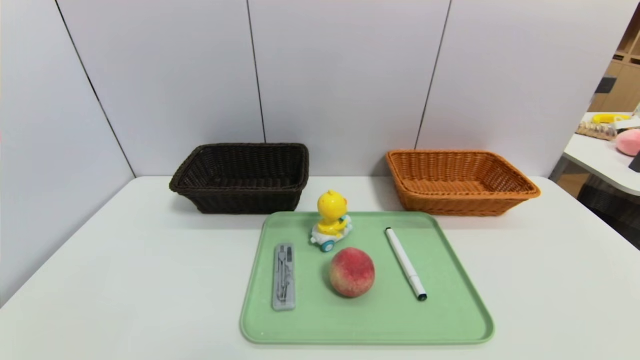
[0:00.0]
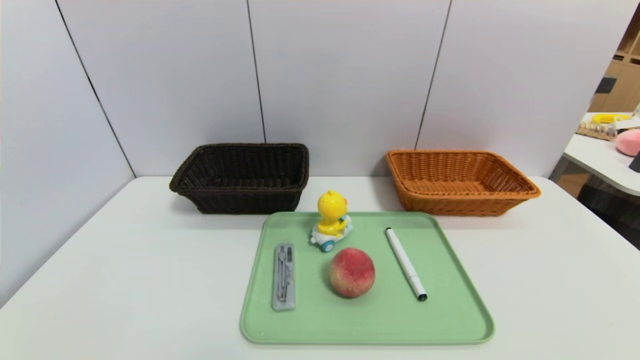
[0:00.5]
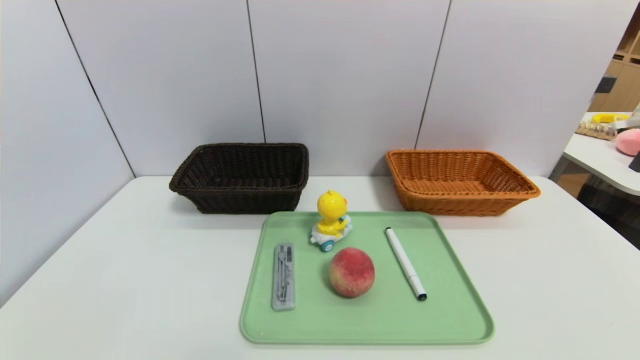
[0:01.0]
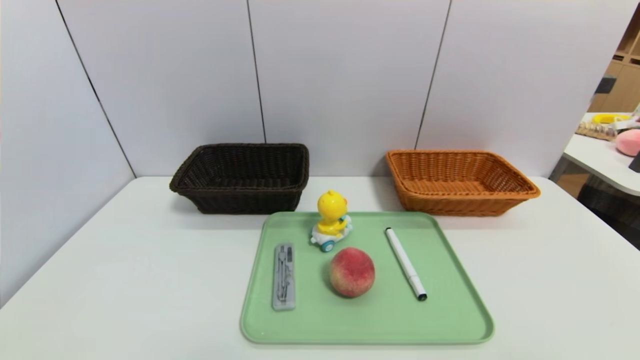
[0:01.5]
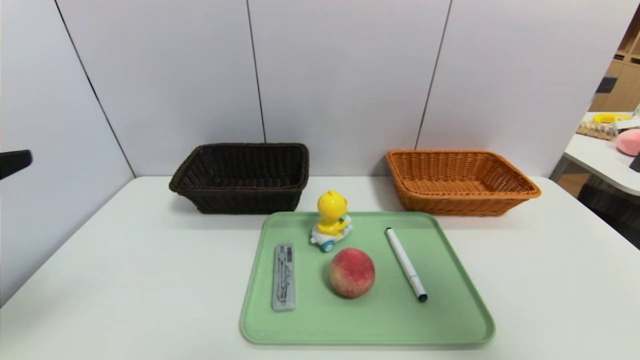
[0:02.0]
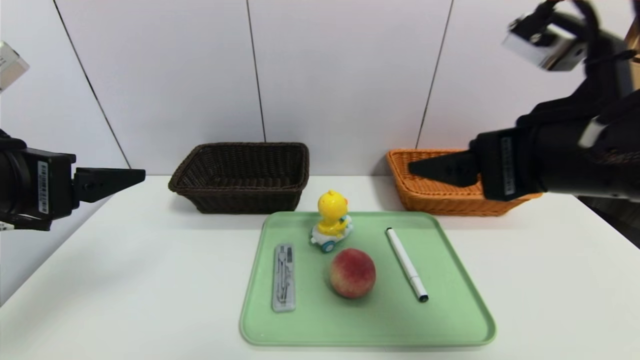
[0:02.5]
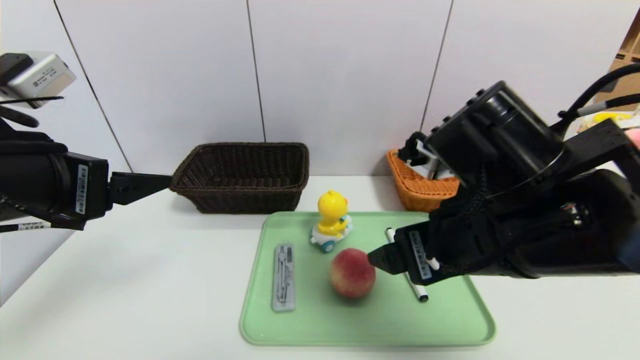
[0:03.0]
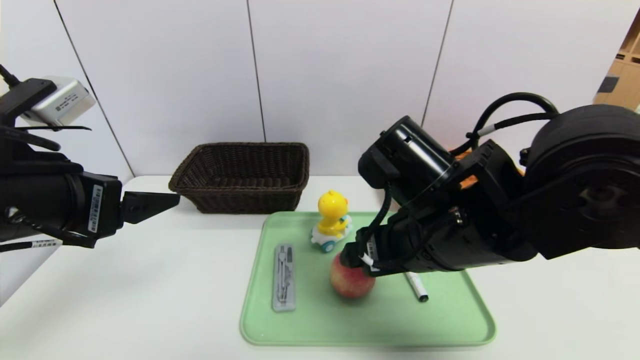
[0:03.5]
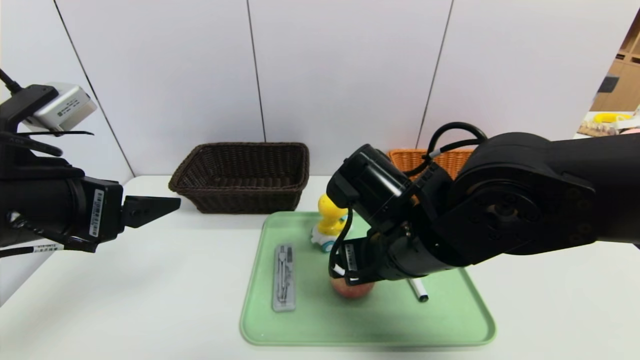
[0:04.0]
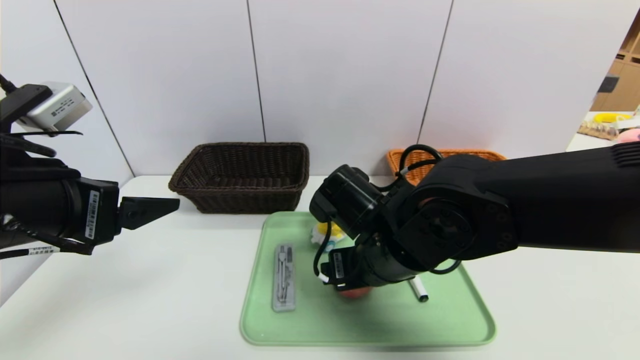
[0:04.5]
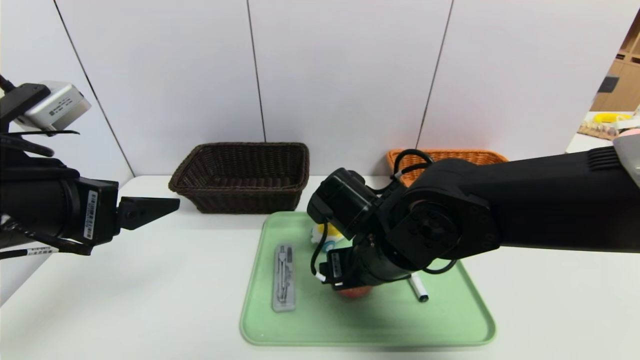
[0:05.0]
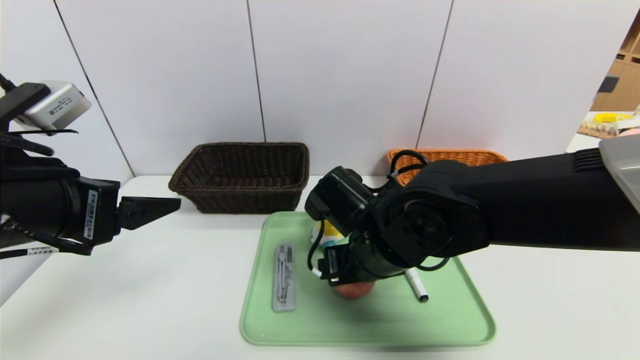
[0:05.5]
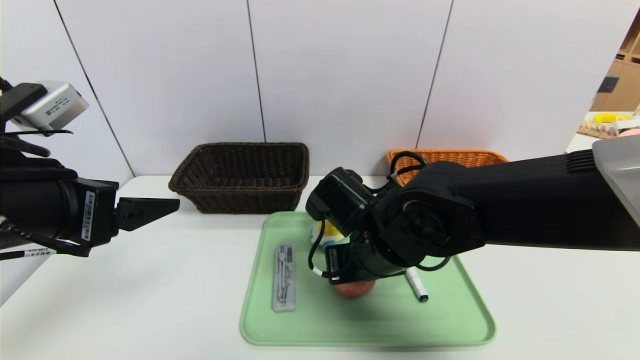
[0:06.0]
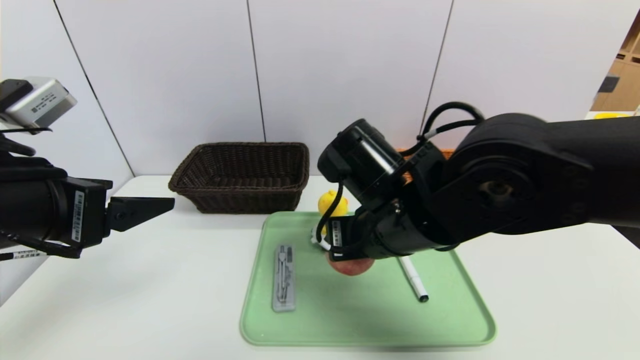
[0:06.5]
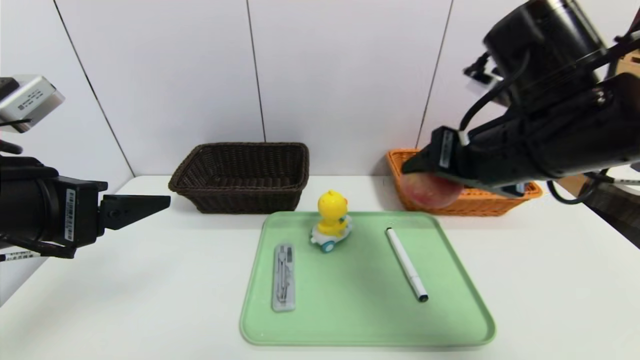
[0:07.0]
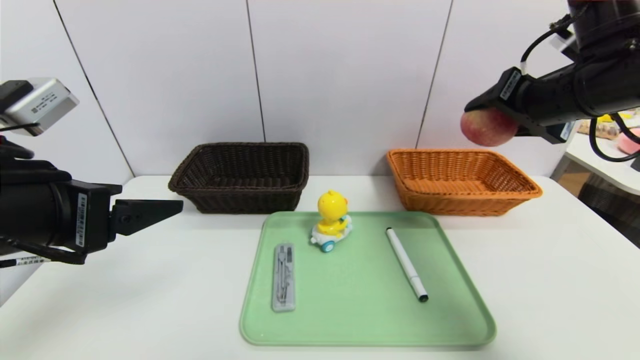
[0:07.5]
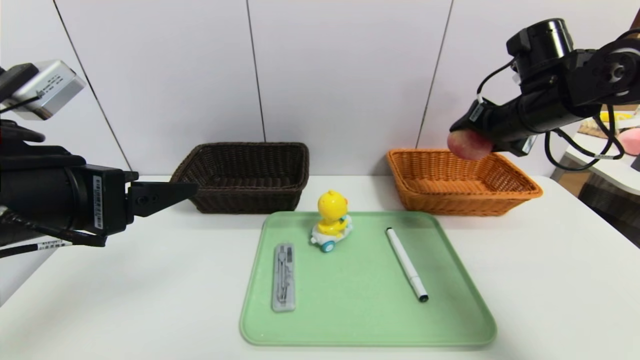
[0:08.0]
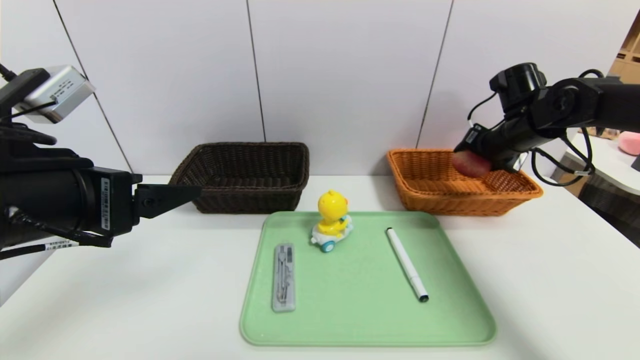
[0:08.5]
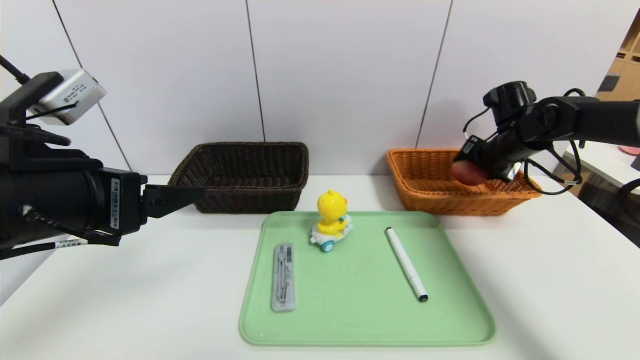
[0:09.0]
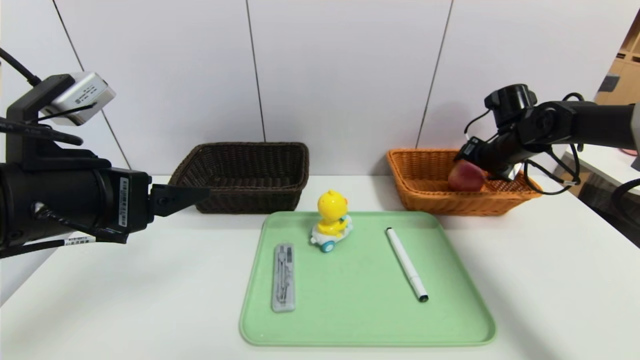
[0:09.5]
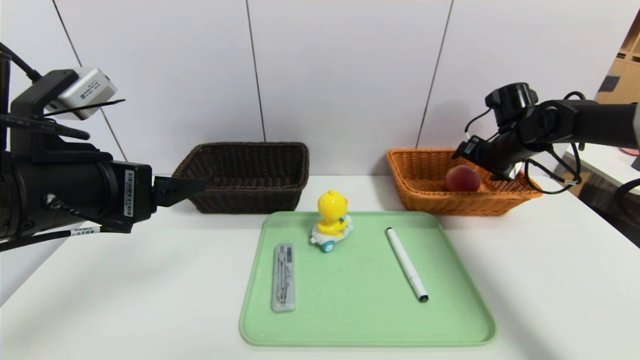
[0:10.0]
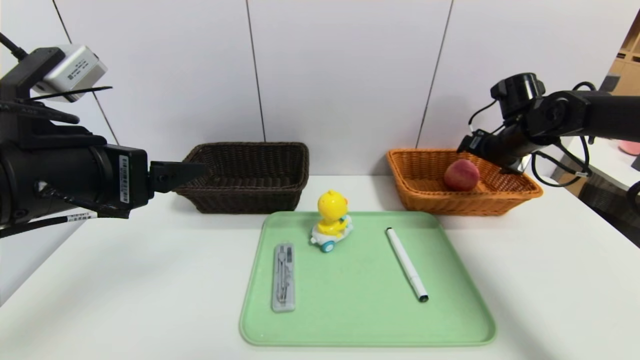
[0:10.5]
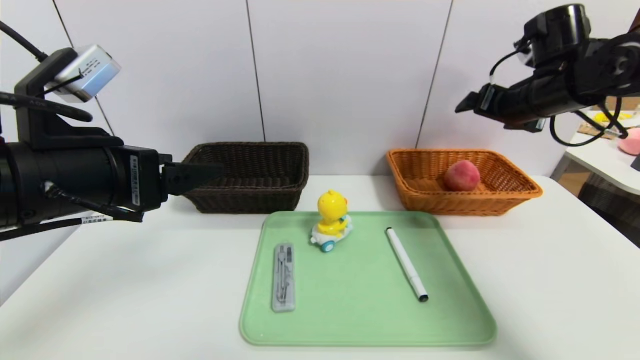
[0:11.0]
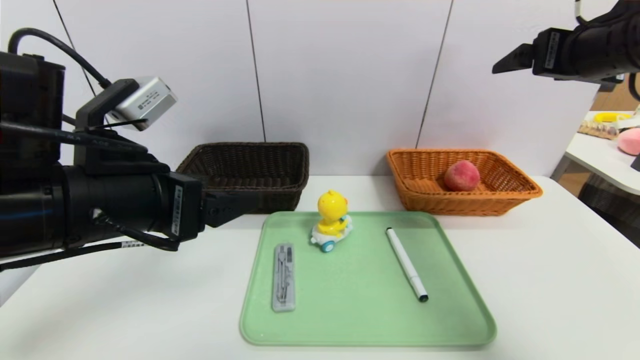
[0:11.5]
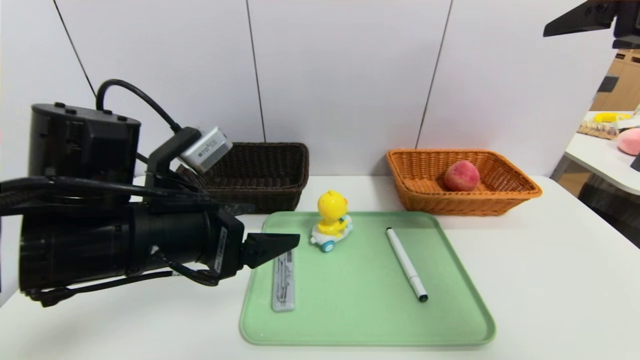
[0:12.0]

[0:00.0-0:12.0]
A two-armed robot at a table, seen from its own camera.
Task of the whole recording: place the food in the right basket with the right gripper, and place the non food items in the left basket with the left gripper.
Step, 0:00.0 to 0:09.5: Grasp the peach and put it in the right basket.
0:00.0 to 0:02.0: Both grippers travel together upward and forward, some 30 cm.
0:02.0 to 0:04.0: The right gripper moves to the left, downward and forward, approximately 30 cm, while the left gripper heads forward and to the right, covering roughly 10 cm.
0:04.0 to 0:06.0: The right gripper changes place by roughly 5 cm, and closes up.
0:06.0 to 0:08.0: The right gripper goes some 30 cm to the right, upward and forward.
0:08.0 to 0:10.0: The right gripper moves downward, forward and to the right, some 15 cm.
0:10.0 to 0:12.0: The right gripper is displaced backward and upward by some 35 cm. Meanwhile the left gripper shifts approximately 10 cm to the right and downward.

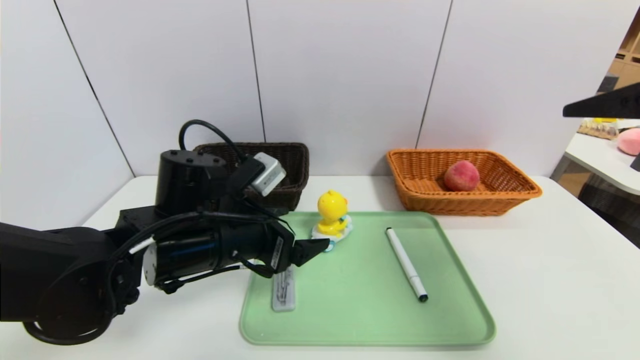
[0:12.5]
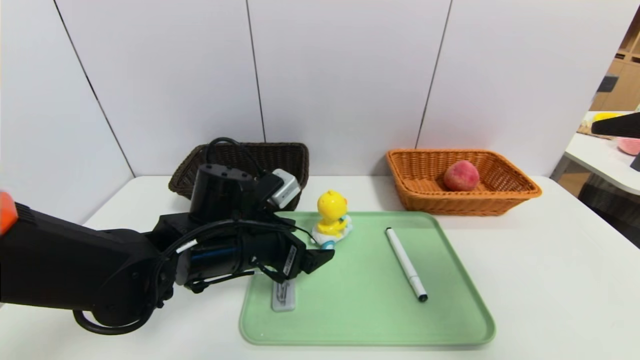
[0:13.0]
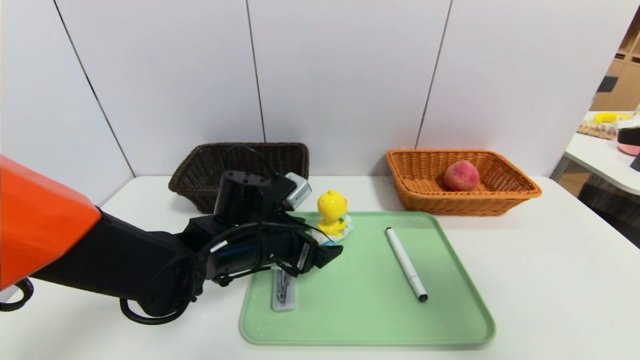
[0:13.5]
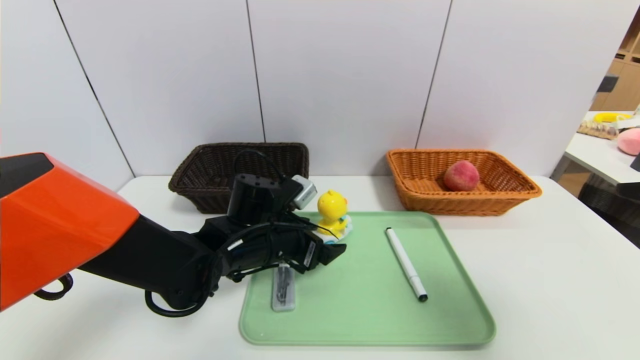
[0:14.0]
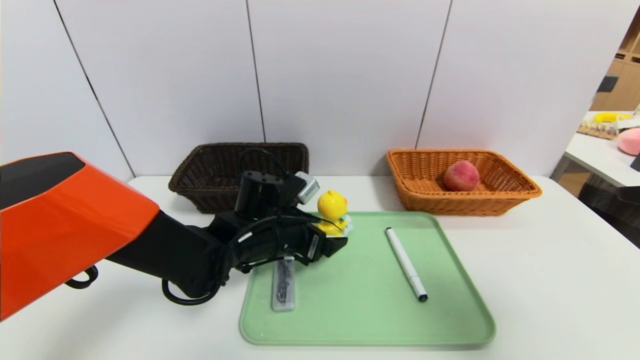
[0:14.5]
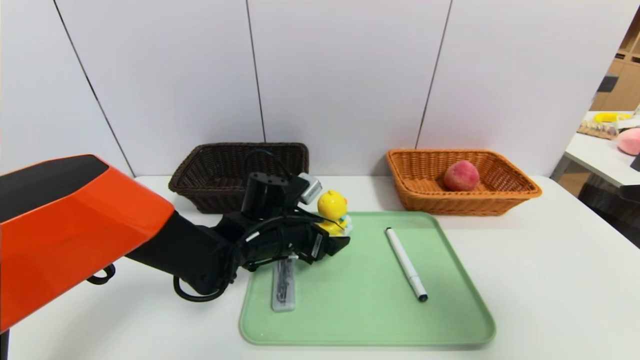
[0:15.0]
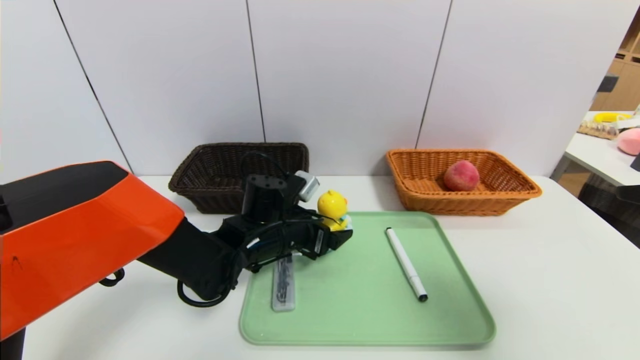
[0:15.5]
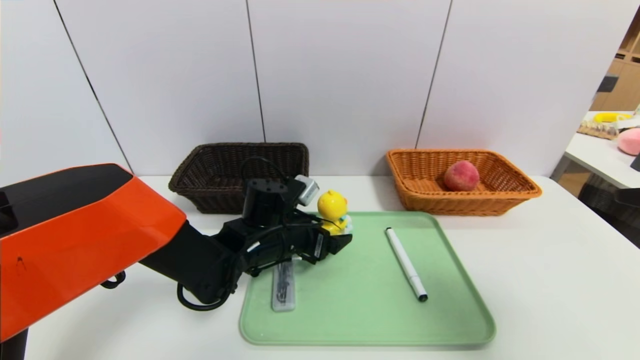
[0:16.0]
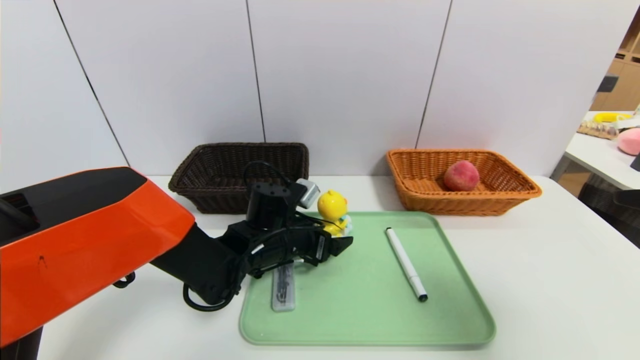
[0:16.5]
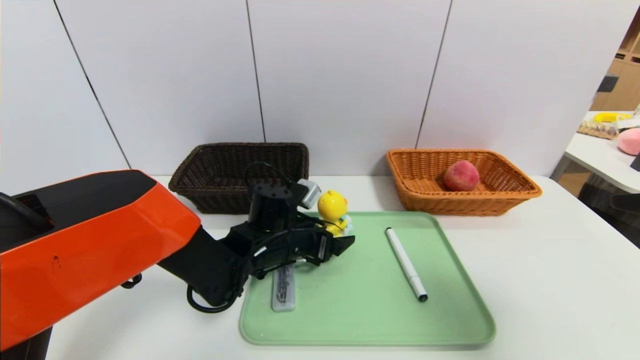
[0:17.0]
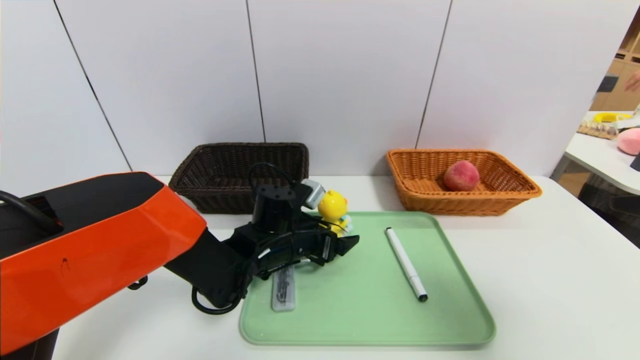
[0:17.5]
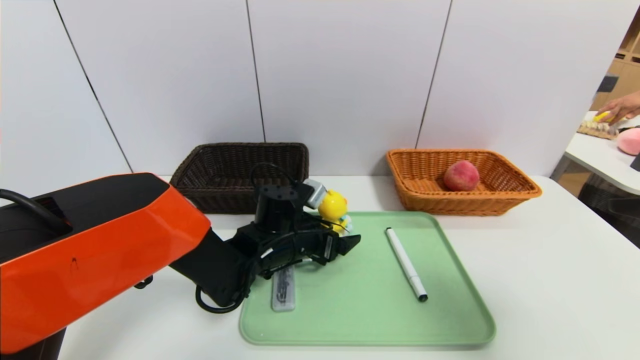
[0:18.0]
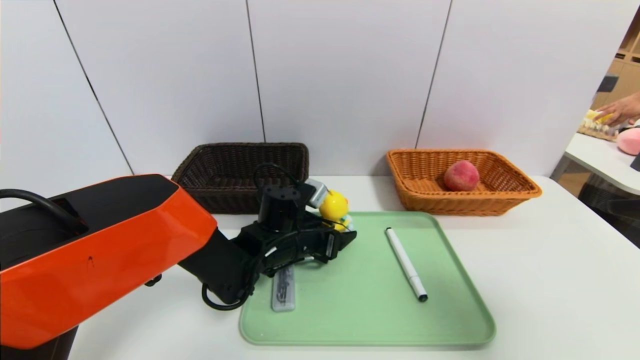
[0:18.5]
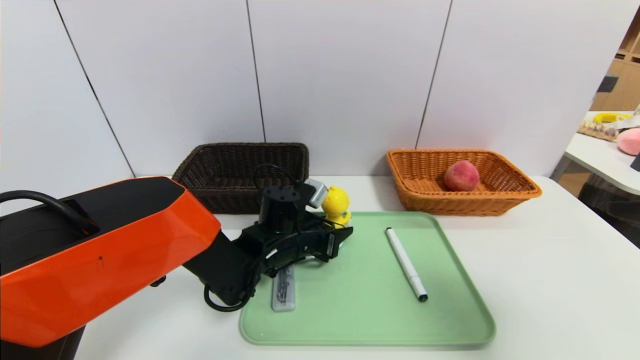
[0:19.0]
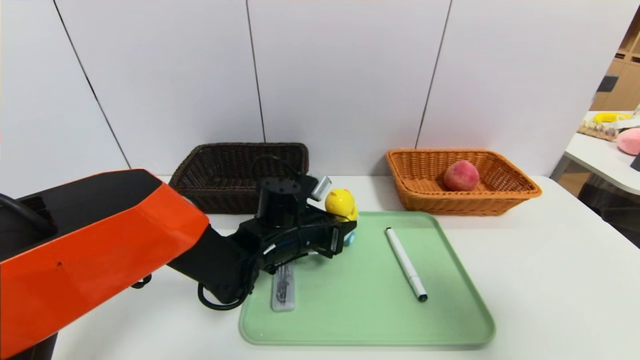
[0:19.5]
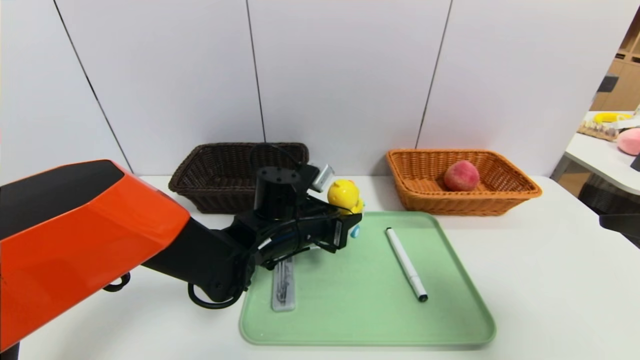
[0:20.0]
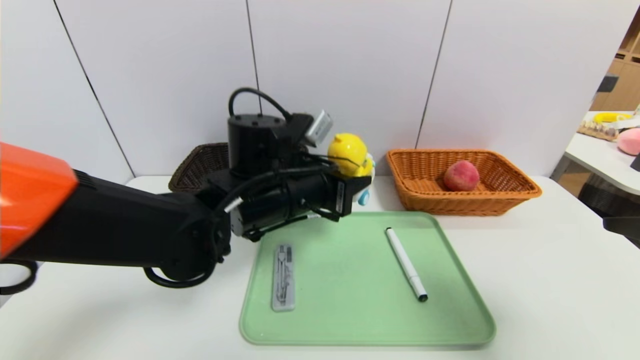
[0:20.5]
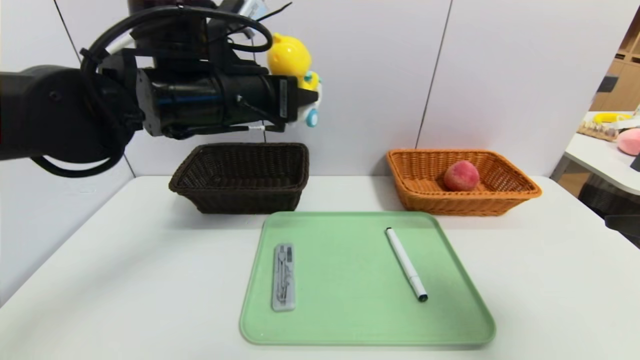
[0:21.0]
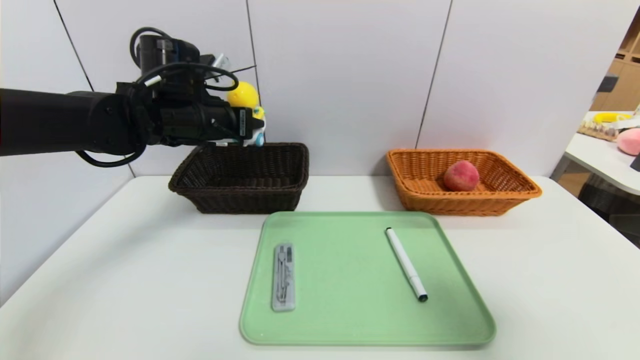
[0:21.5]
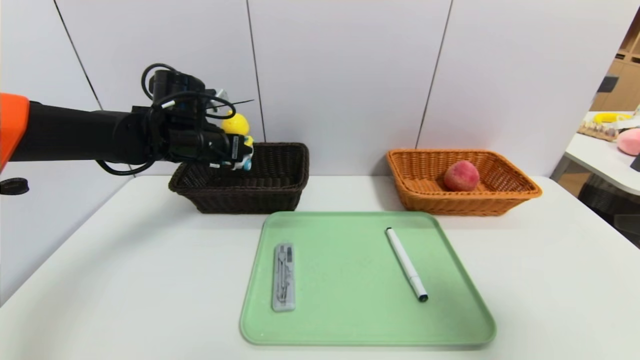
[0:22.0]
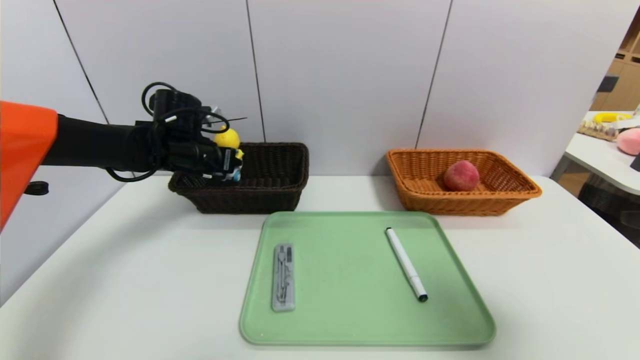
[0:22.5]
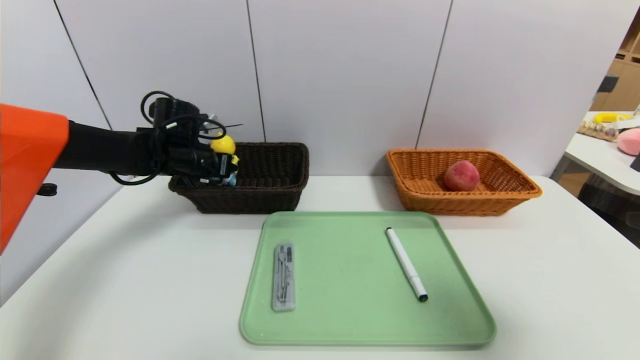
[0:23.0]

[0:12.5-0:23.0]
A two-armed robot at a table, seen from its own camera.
Task of the whole recording: place the food in the right basket with the right gripper, and place the non food items in the left basket with the left gripper.
0:12.5 to 0:14.5: The left gripper is displaced forward and downward by about 10 cm; the right gripper heads backward, covering roughly 5 cm.
0:14.5 to 0:16.5: The grippers make only small movements.
0:16.5 to 0:19.0: The left gripper closes its fingers.
0:19.0 to 0:21.0: The left gripper goes approximately 25 cm upward.
0:21.0 to 0:23.0: The left gripper heads downward, forward and to the left, covering approximately 25 cm.
